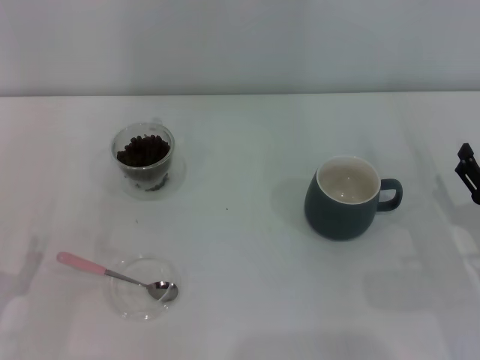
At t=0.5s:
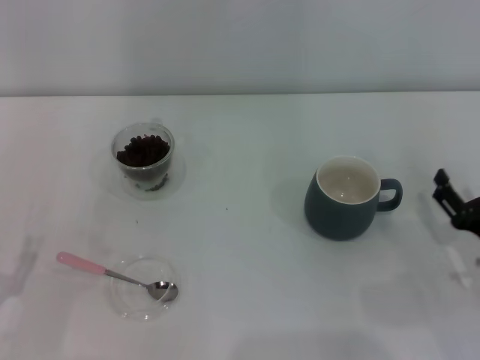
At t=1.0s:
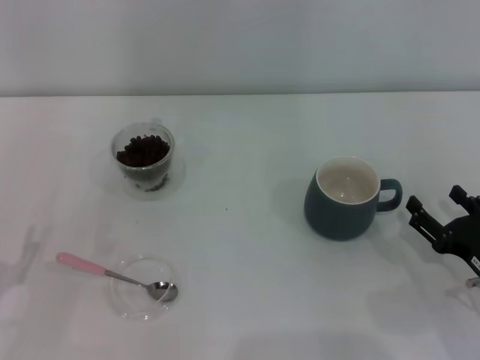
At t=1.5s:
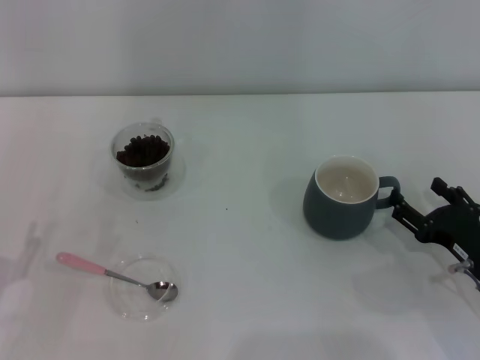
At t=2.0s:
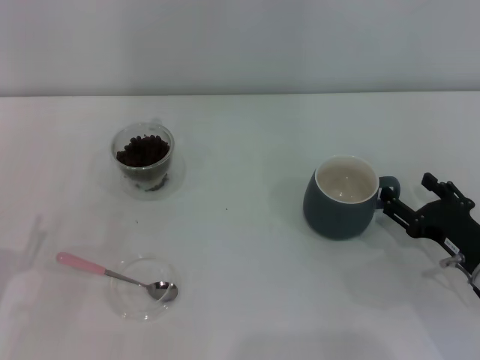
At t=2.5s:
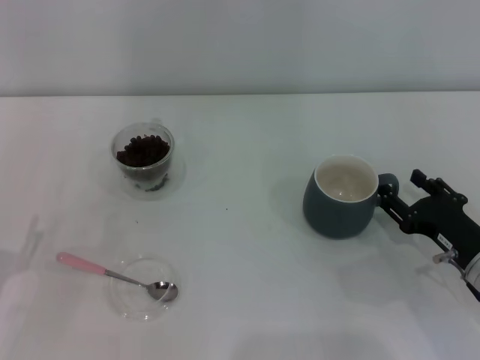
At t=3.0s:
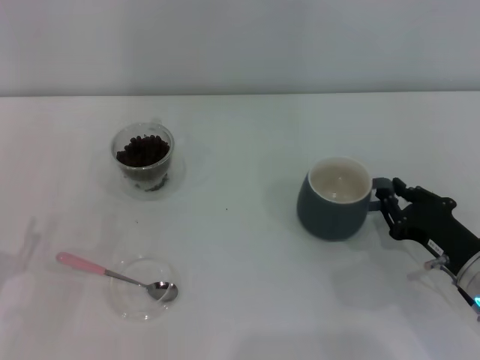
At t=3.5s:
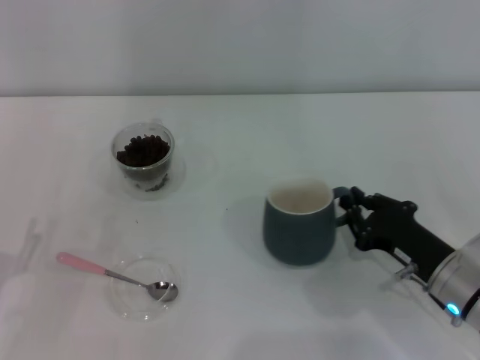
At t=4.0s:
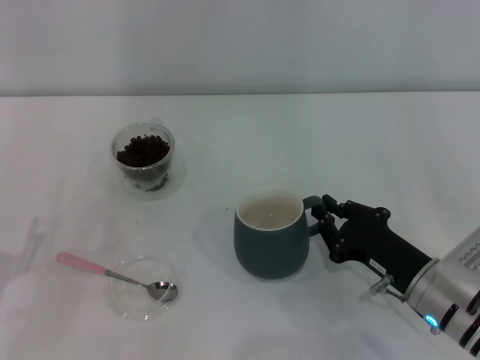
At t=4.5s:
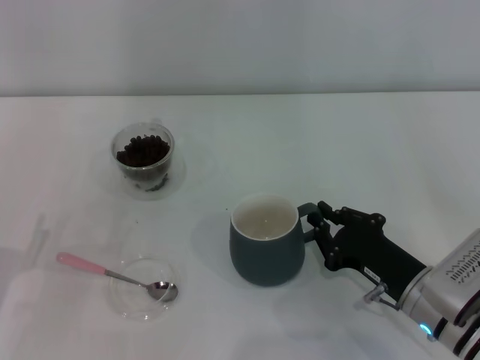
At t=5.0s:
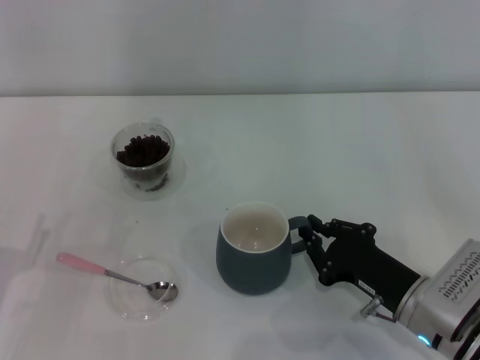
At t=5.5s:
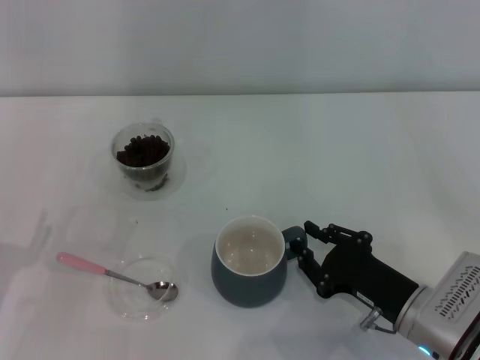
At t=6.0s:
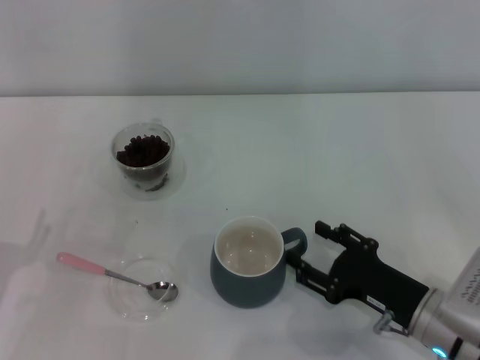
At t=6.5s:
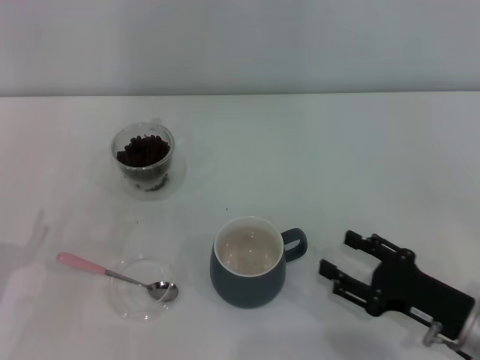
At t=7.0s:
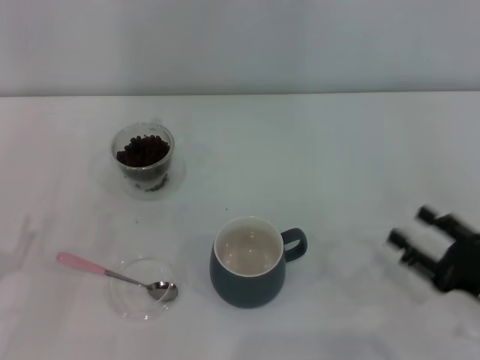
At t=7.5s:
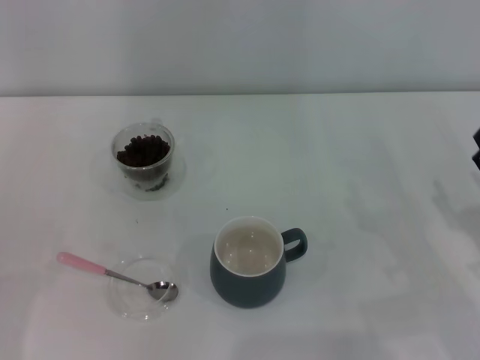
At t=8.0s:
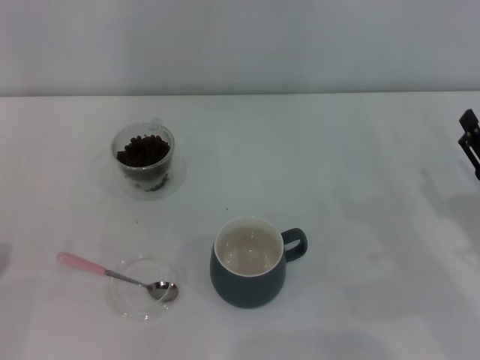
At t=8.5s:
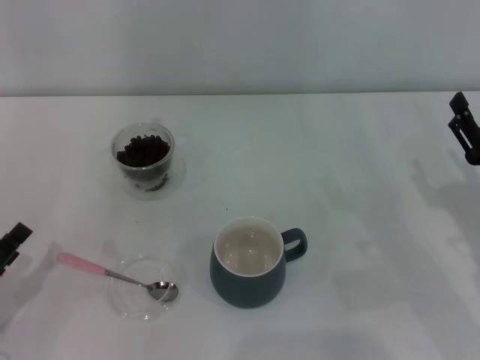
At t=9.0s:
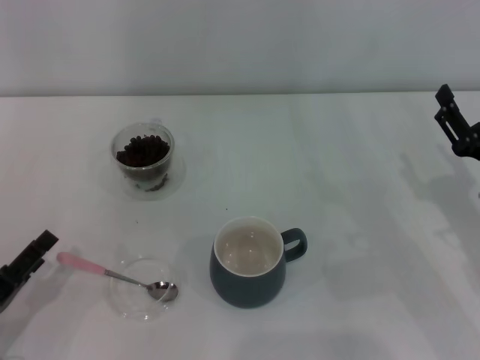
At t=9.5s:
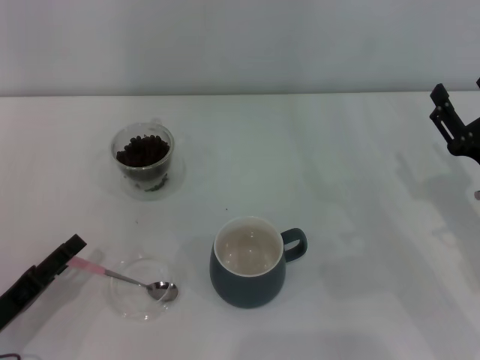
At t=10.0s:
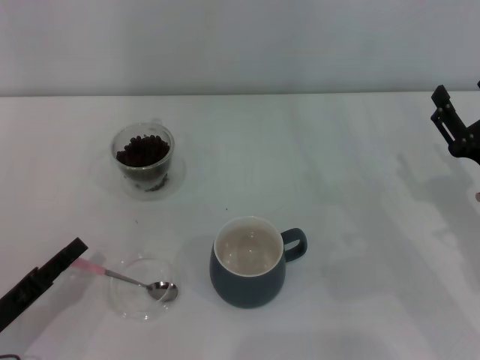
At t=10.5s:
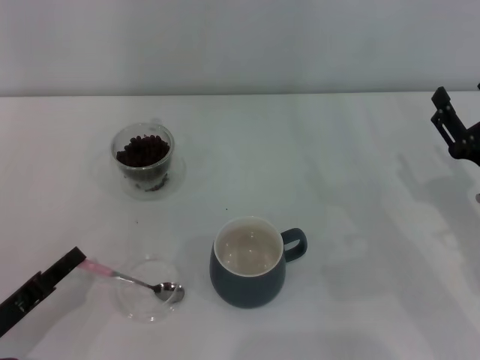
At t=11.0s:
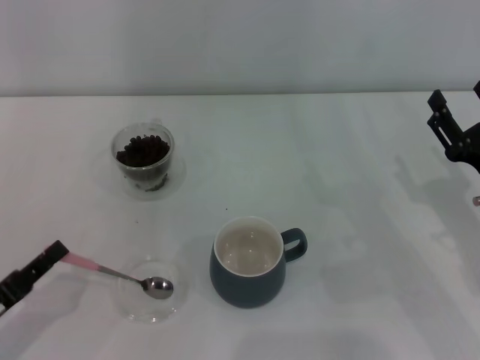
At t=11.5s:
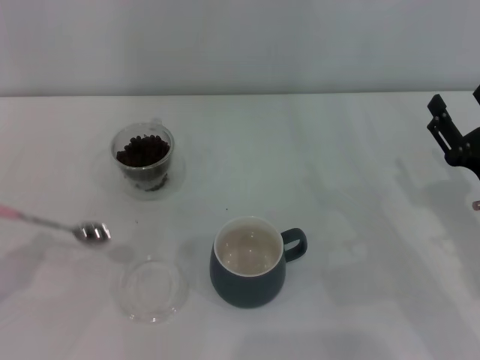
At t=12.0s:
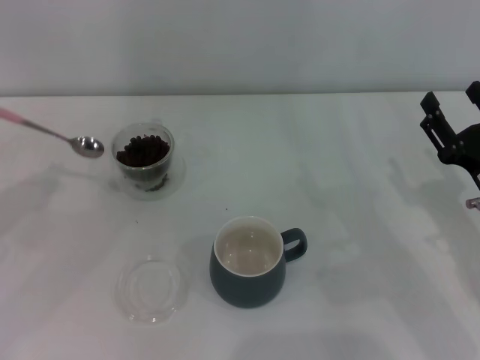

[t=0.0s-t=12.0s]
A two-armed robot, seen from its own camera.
Task of the whole recording: Use a pink spoon to take out the coffee beans from the glass and pour them into the gray cup.
Step, t=0.0s to t=6.0s: Move the cup to the center of view with the left gripper.
Step, t=6.5s to t=11.0s: Pick up the spoon with the right gripper.
t=2.0s to t=4.0s: The right gripper travels to the left by some 5 cm, and closes.
t=4.0s to t=6.0s: The right gripper opens.
t=6.0s to t=8.0s: The left gripper moves to the left, about 5 cm; the right gripper travels to the right by roughly 10 cm.
t=8.0s to t=10.0s: The left gripper is displaced to the right by roughly 5 cm.
t=10.0s to t=12.0s: The left gripper shifts approximately 15 cm upward, forward and to the left, and closes up.

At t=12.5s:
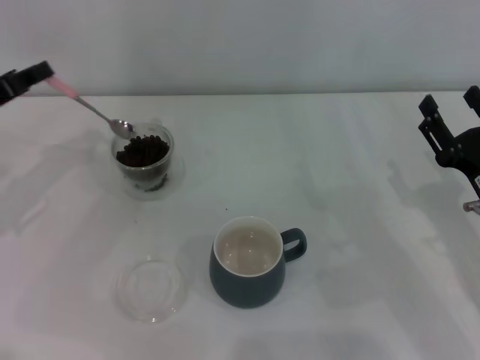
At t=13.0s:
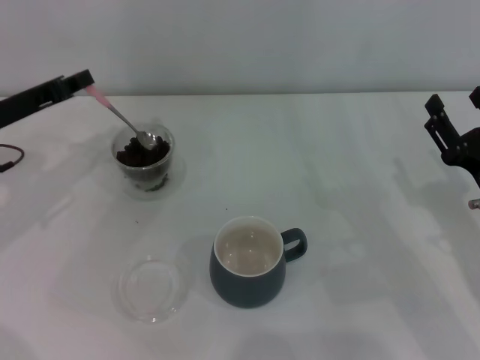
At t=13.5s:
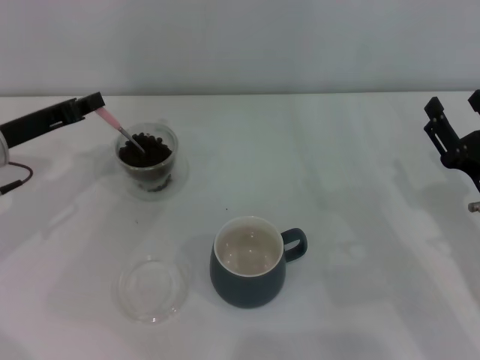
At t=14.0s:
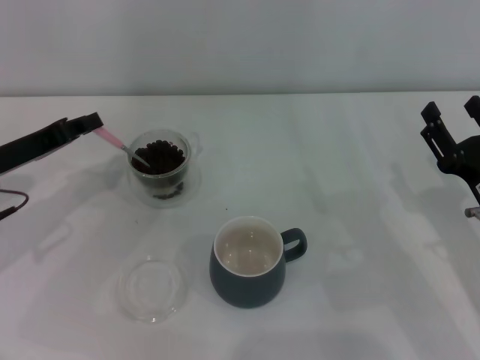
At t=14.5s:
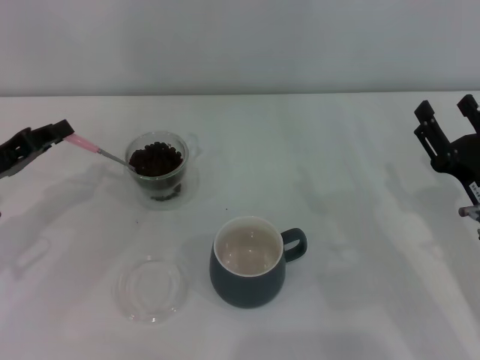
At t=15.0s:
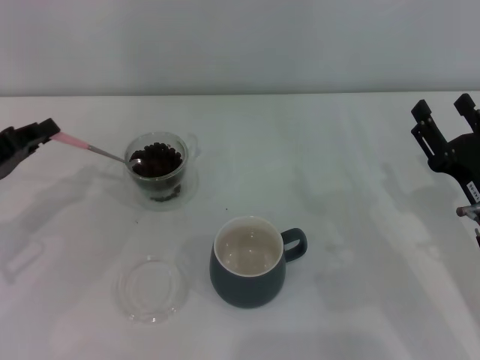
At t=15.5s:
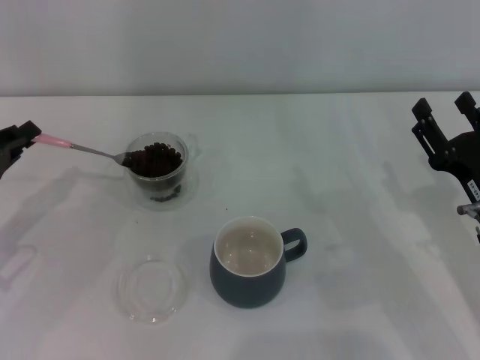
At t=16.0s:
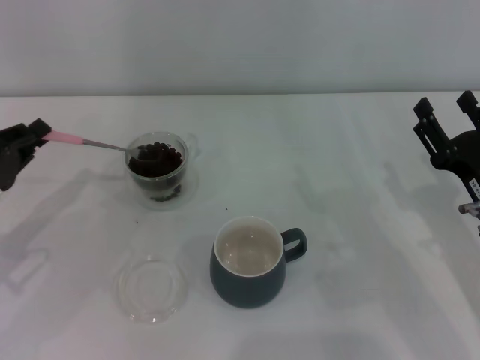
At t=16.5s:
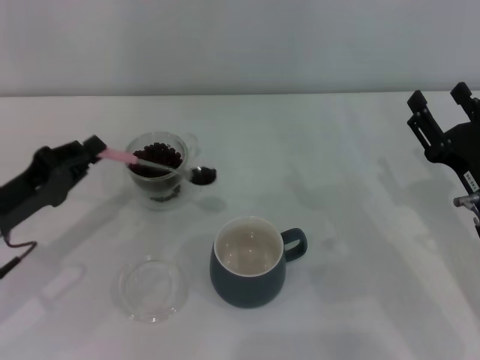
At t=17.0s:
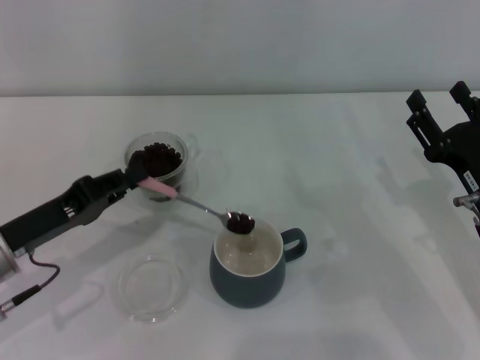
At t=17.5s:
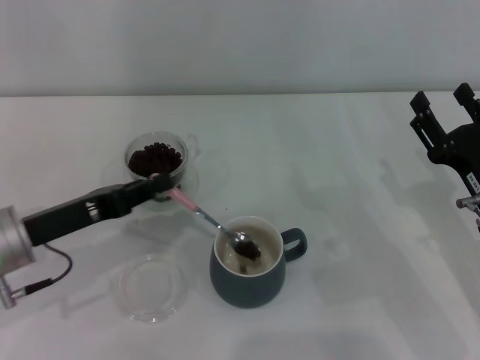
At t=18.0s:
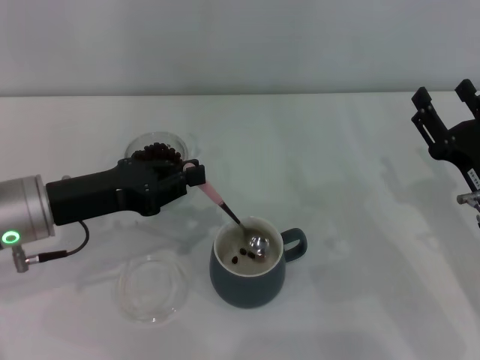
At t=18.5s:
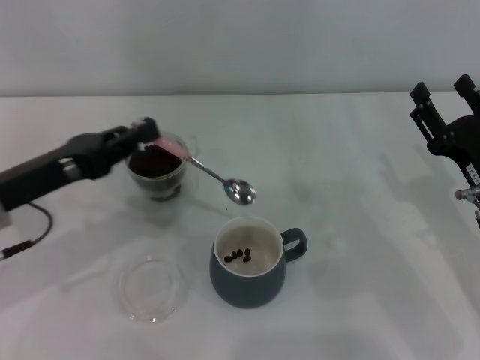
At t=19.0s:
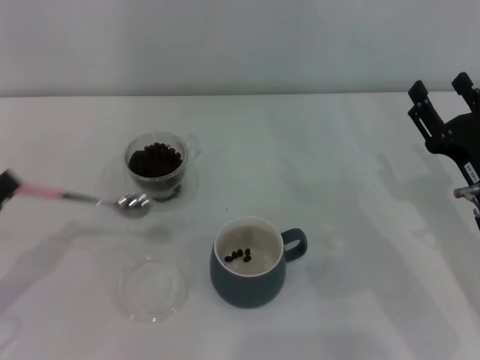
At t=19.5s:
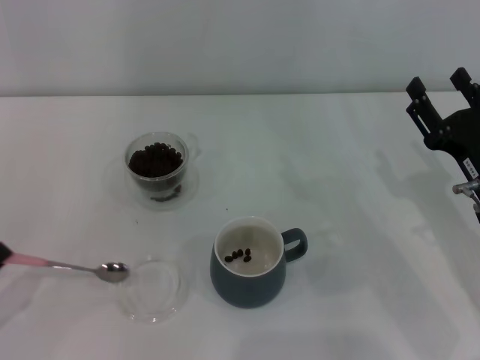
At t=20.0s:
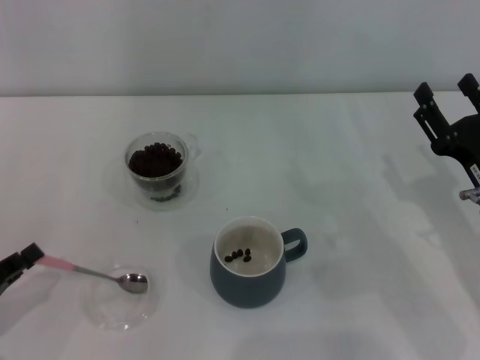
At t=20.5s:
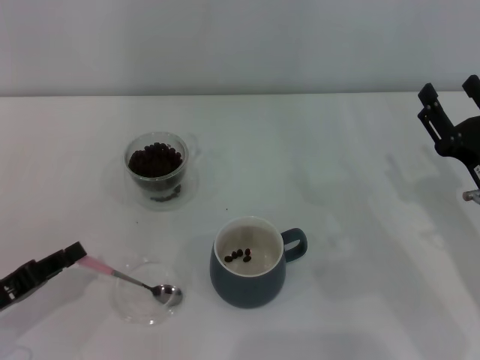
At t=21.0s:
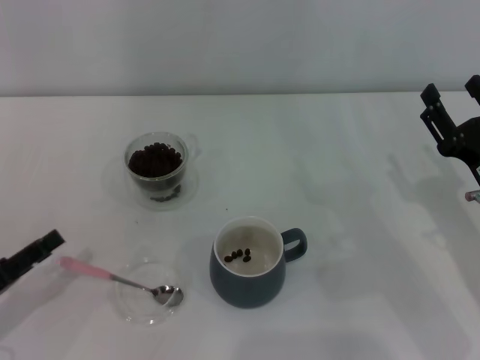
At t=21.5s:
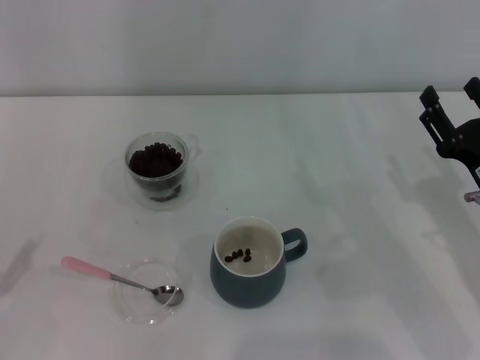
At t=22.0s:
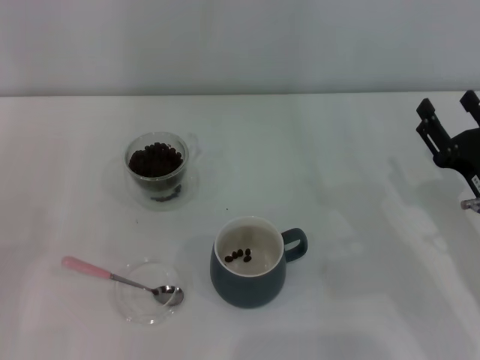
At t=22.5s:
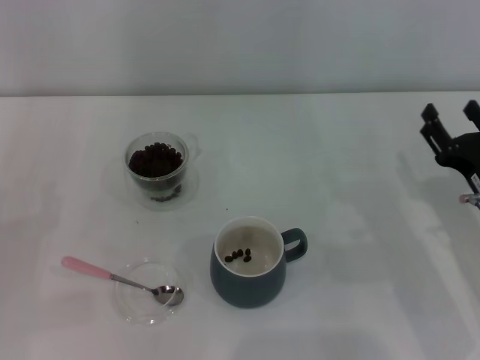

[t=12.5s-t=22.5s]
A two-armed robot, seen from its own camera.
Task of the whole recording: Use a pink spoon to take out the coffee beans from the glass and pour them into the gray cup.
t=12.5s to t=14.5s: The left gripper moves approximately 5 cm.
t=14.5s to t=16.5s: The left gripper shifts by some 5 cm.
t=16.5s to t=18.5s: The left gripper shifts by roughly 5 cm.
t=18.5s to t=20.5s: The left gripper travels downward, backward and to the left by roughly 15 cm.
t=20.5s to t=22.5s: The left gripper ends up some 5 cm from where it was, and opens.
